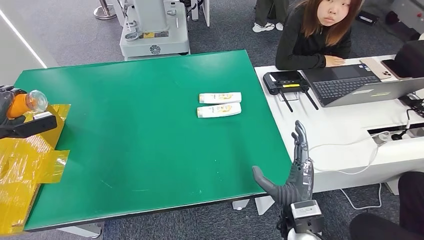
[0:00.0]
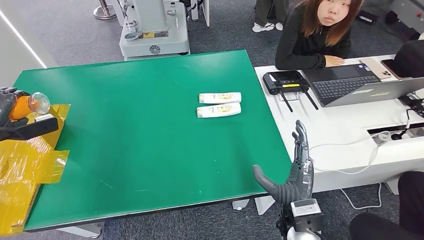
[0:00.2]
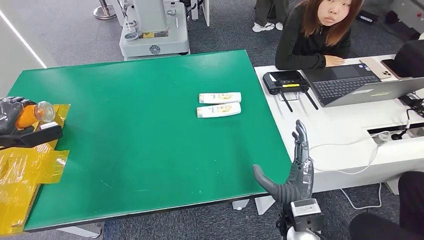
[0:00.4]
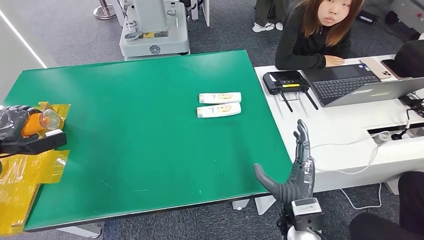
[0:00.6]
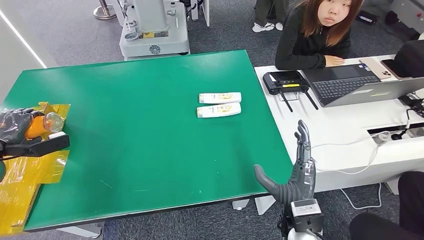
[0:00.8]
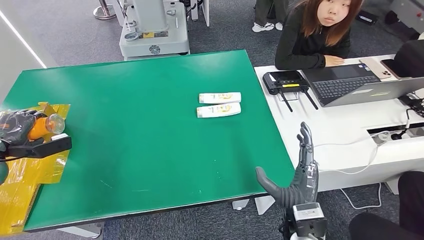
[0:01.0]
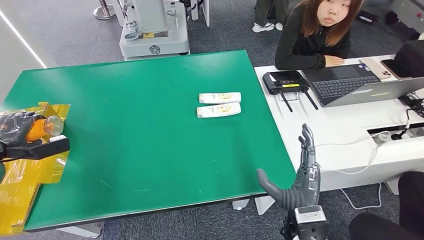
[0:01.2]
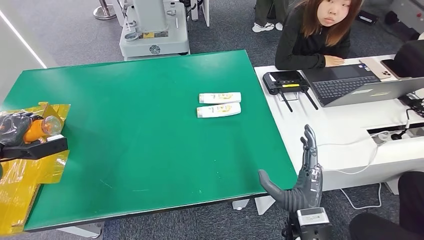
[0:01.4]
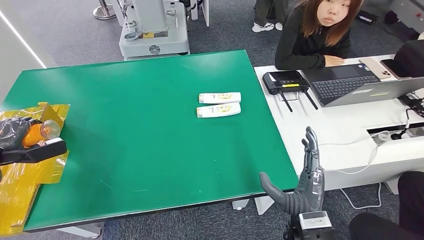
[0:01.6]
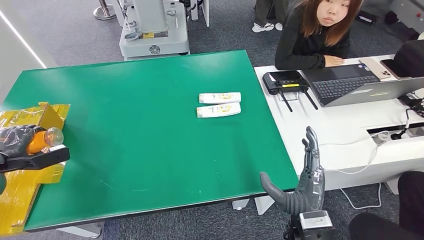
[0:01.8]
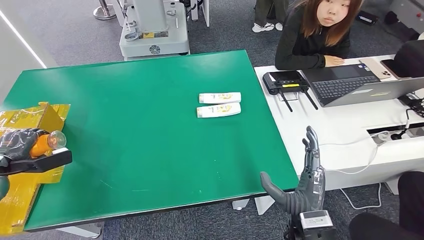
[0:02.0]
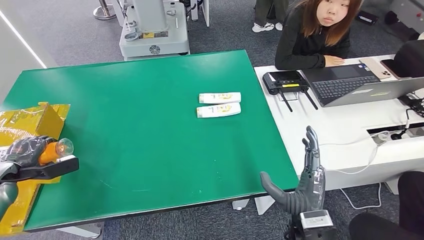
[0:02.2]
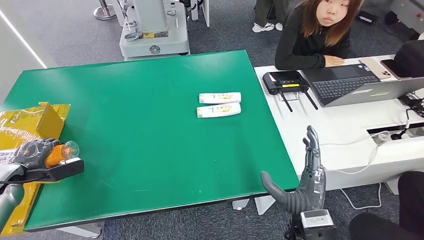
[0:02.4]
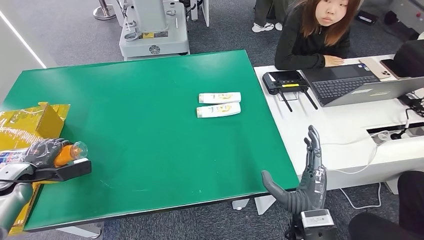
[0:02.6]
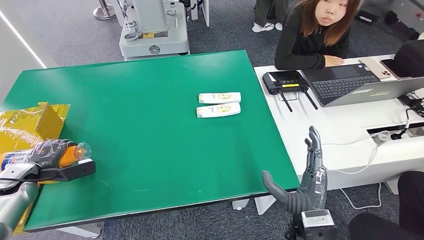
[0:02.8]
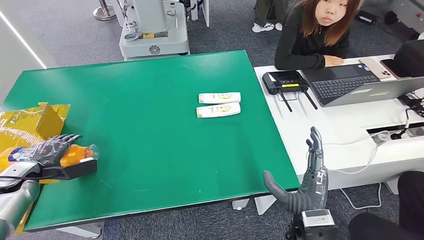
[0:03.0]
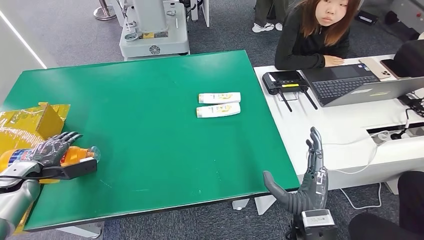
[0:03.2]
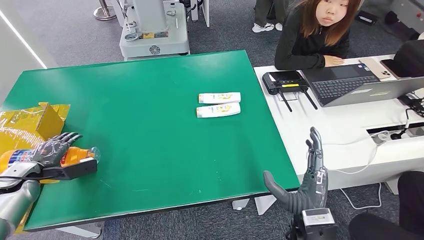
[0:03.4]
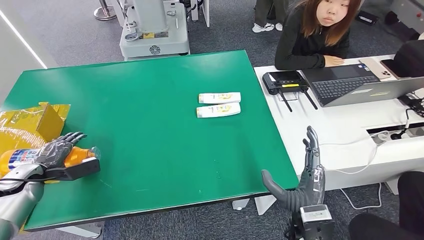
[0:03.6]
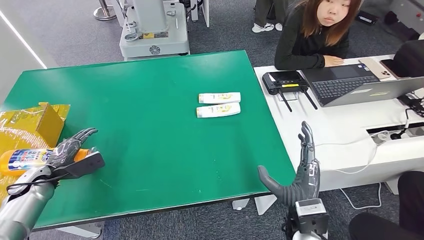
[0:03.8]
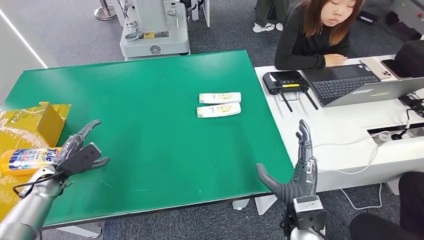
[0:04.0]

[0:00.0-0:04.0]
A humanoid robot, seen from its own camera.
Step, 0:00.0 to 0:04.0: Turn the bottle to the front side.
0:00.0 to 0:01.4: The left hand is displaced downward by roughly 5 cm.
0:01.4 to 0:02.6: The left hand shifts approximately 5 cm downward.
0:02.6 to 0:04.0: The left hand moves to the right, some 10 cm.
